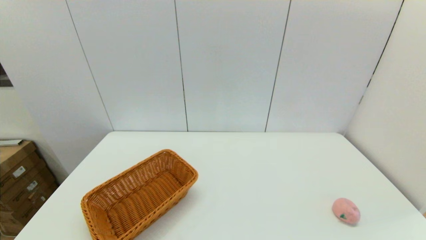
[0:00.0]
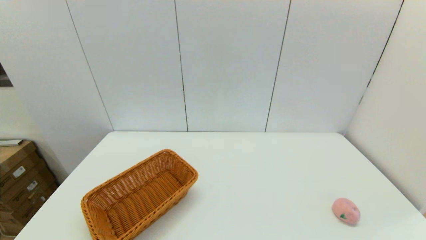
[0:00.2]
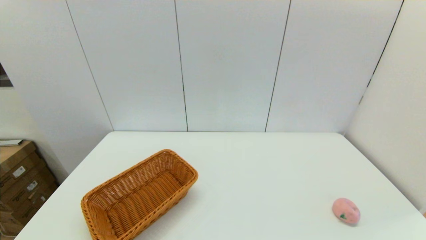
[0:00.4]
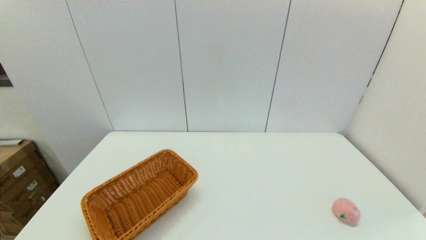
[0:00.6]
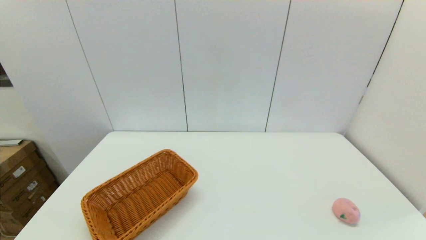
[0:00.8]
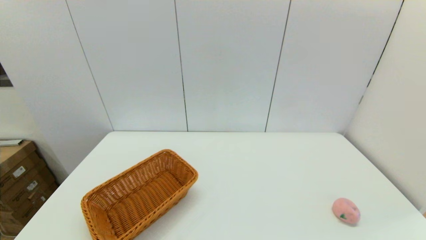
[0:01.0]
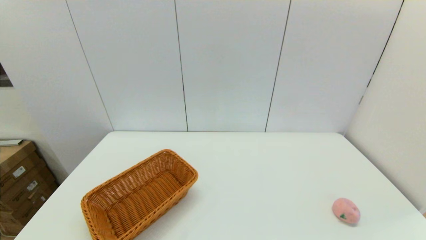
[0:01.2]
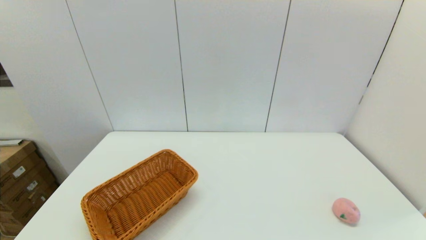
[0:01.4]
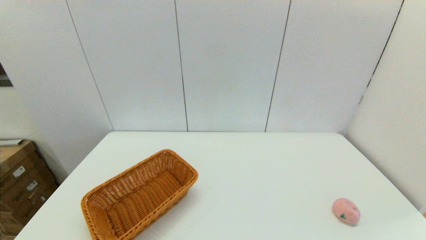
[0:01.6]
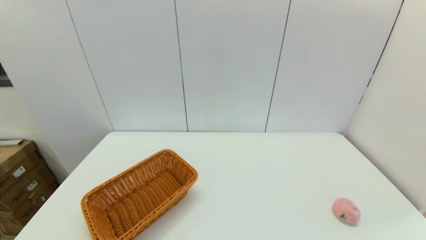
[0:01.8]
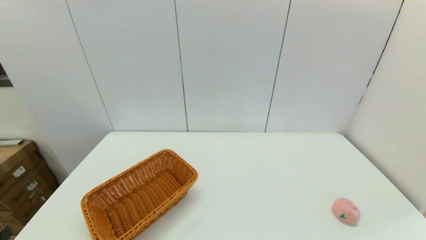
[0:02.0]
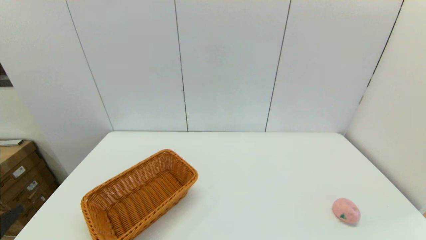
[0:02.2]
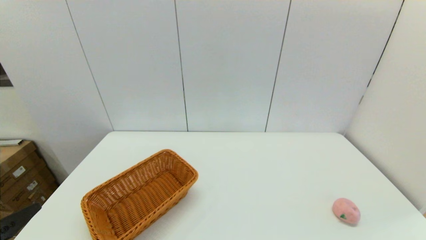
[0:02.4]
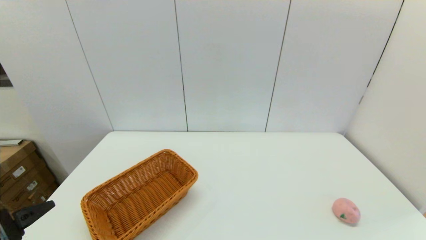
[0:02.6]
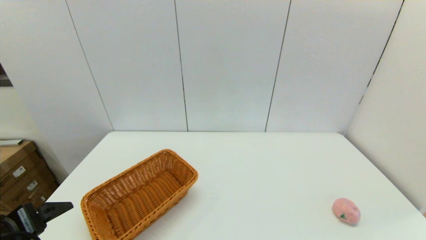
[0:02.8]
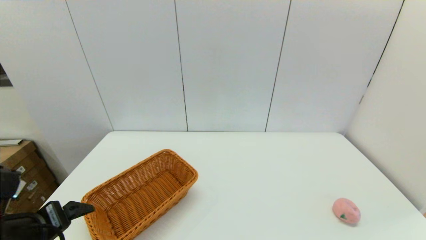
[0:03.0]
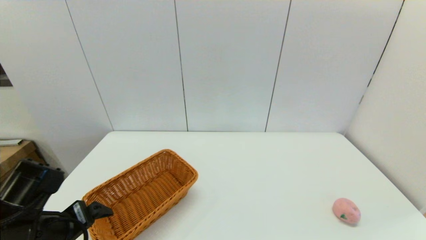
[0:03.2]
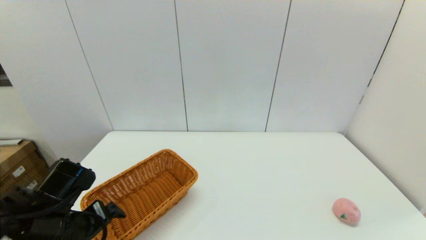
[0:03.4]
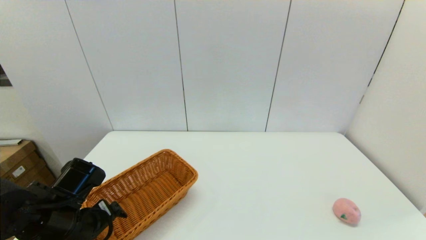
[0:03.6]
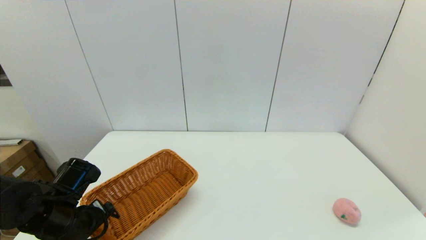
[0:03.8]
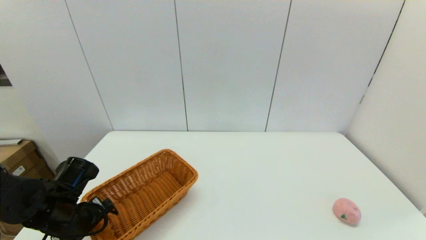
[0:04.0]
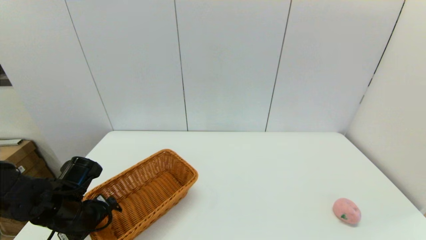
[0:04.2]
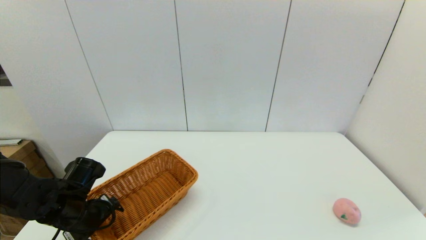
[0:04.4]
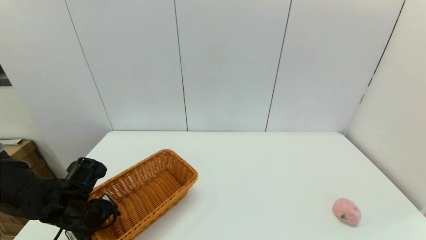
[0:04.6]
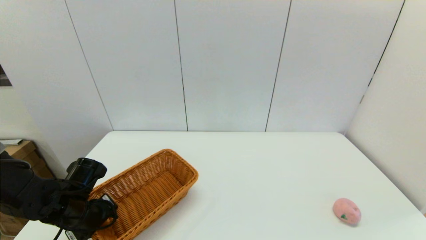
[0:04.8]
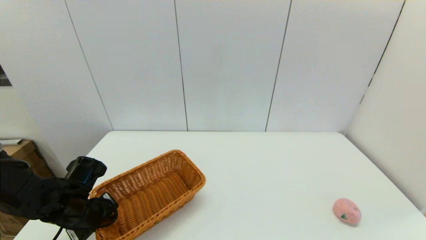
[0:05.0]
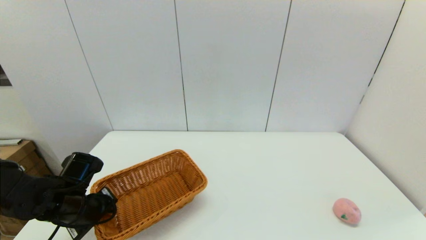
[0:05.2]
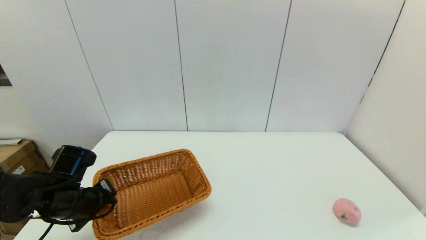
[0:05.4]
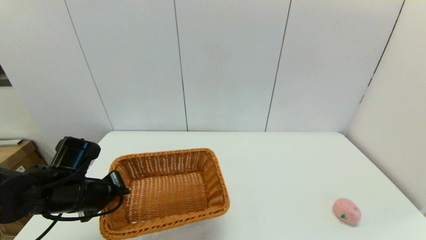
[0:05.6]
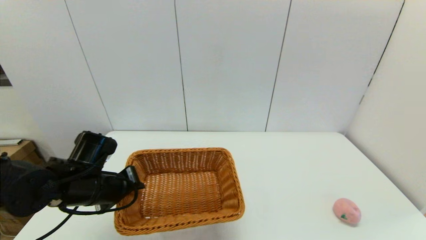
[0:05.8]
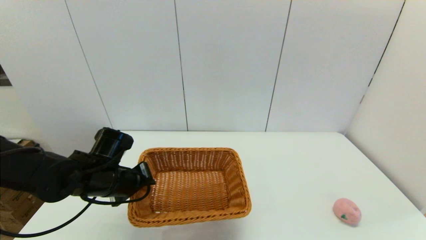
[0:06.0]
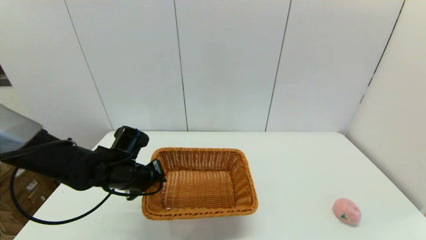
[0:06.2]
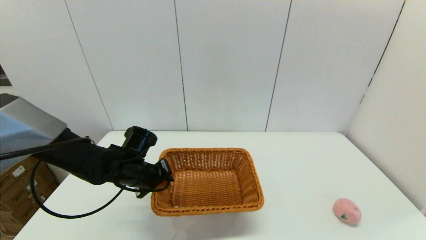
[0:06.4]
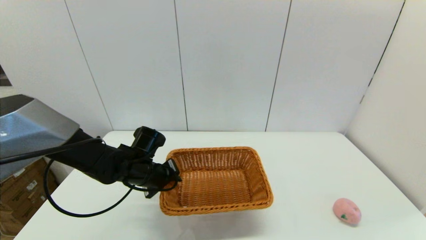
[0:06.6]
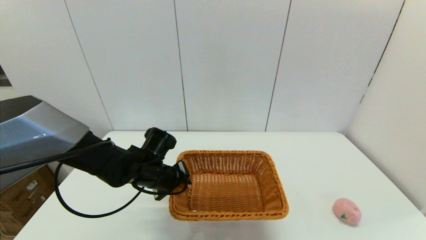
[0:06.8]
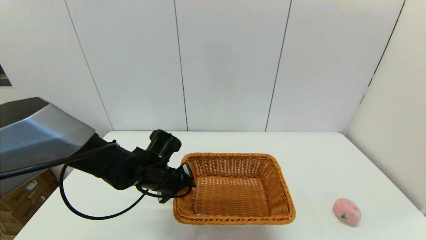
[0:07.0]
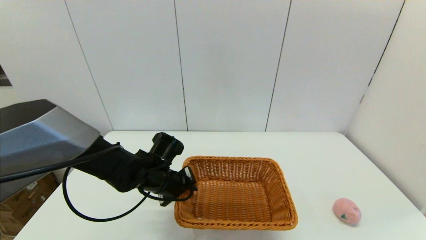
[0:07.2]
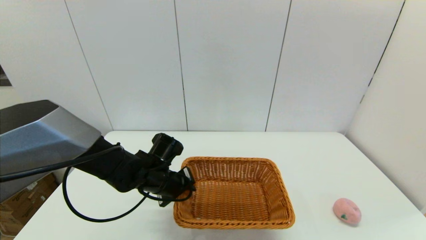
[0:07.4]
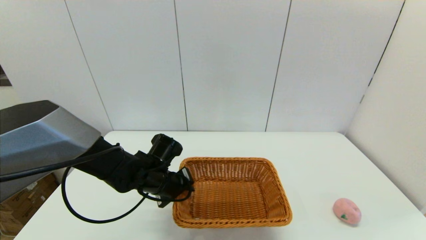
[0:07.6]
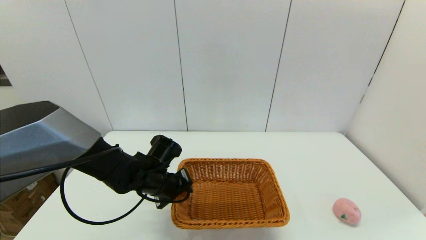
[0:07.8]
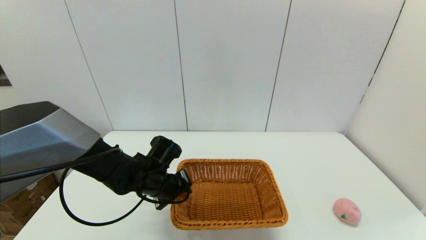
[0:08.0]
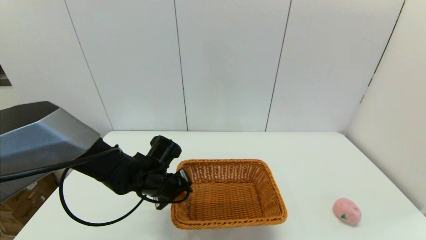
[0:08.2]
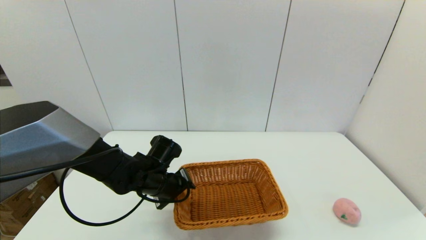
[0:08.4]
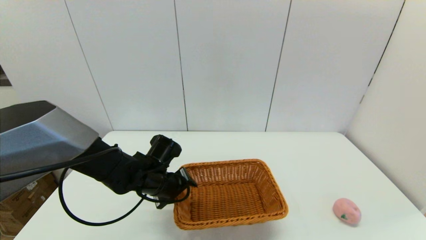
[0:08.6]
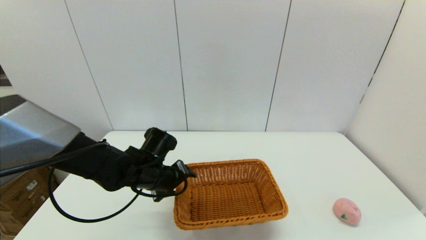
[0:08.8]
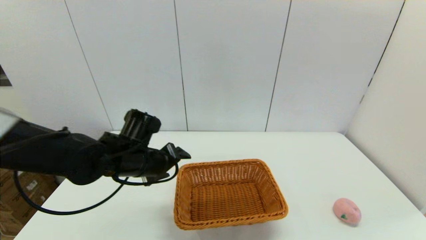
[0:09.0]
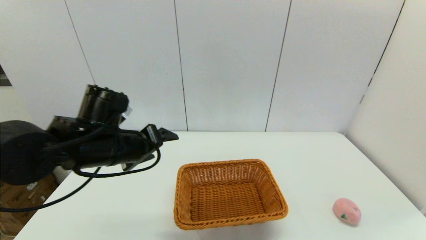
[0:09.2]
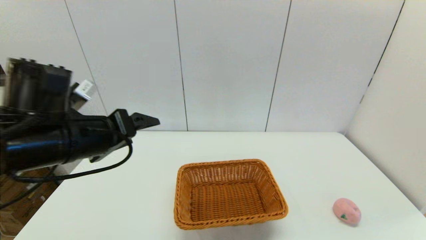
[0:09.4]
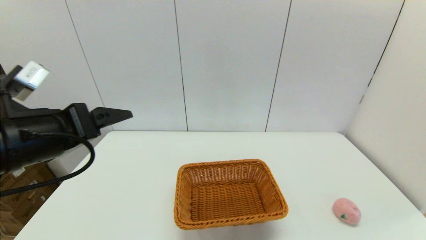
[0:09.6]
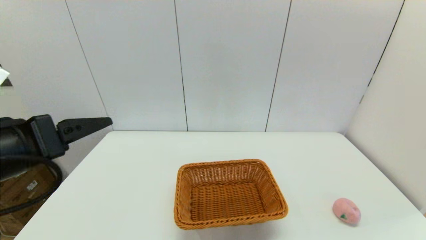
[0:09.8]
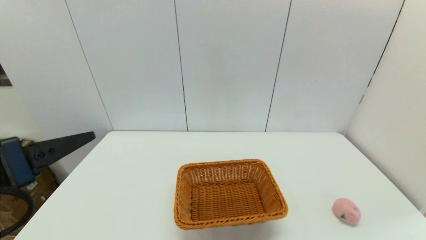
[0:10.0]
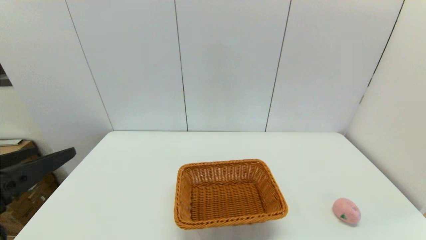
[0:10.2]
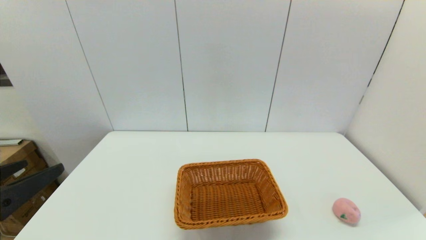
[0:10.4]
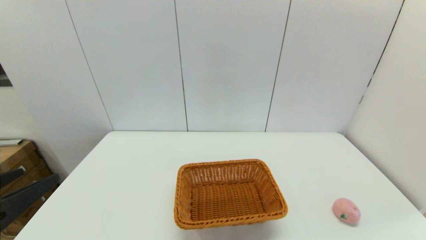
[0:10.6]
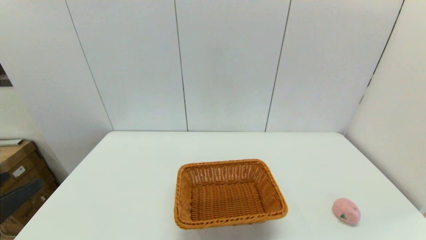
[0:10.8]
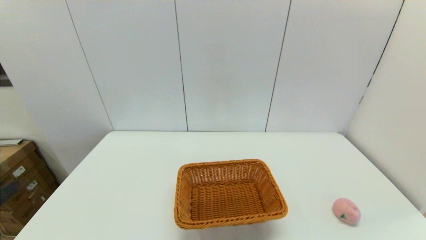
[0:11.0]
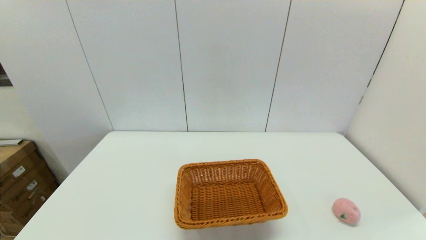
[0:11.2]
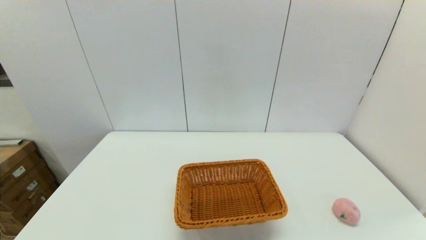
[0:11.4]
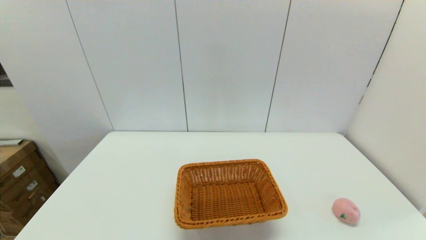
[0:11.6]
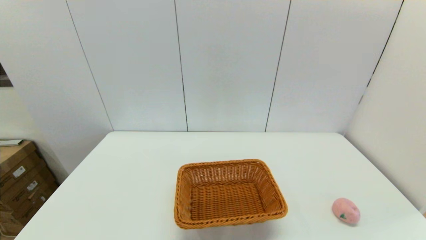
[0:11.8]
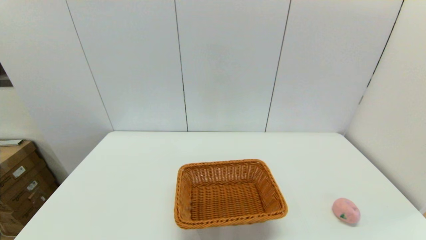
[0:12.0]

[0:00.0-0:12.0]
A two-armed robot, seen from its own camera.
Step, 0:00.0 to 0:04.8: Grasp the light basket with the left gripper.
Step, 0:05.2 to 0:08.6: Place the light basket on the middle of the table with the left gripper.
0:01.6 to 0:03.0: The left gripper moves forward, about 15 cm.
0:03.0 to 0:04.4: The left gripper shifts about 15 cm forward and downward.
0:04.4 to 0:06.0: The left gripper heads to the right, covering about 5 cm, and closes its fingers.
0:06.0 to 0:07.6: The left gripper shifts some 10 cm to the right.
0:07.6 to 0:09.0: The left gripper moves upward, about 10 cm, and opens up.
0:09.0 to 0:10.4: The left gripper heads backward, to the left and upward, covering some 25 cm.
0:10.4 to 0:12.0: The left gripper is displaced backward and downward by some 10 cm.

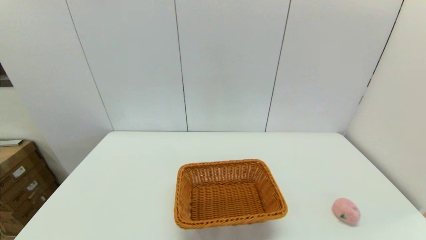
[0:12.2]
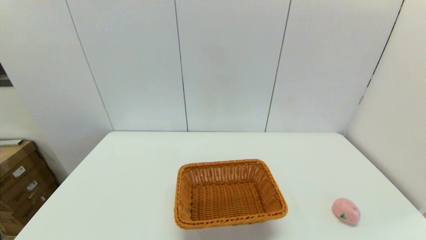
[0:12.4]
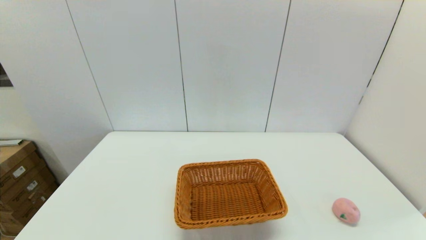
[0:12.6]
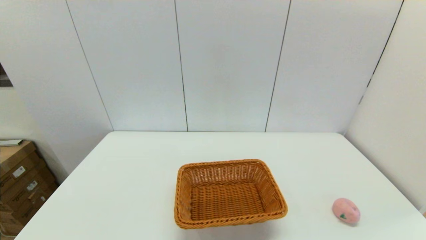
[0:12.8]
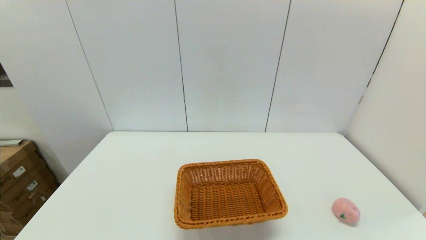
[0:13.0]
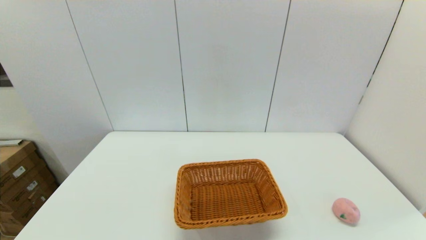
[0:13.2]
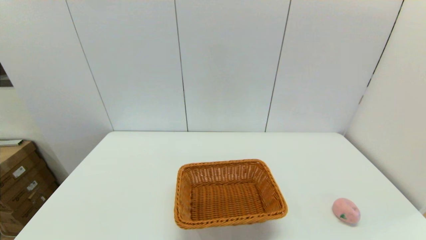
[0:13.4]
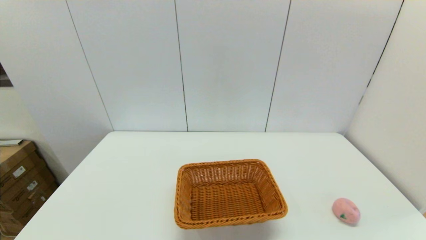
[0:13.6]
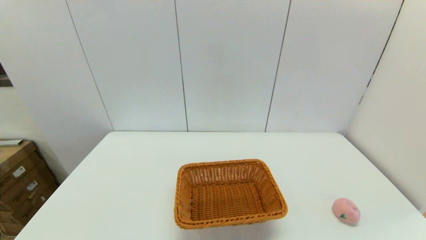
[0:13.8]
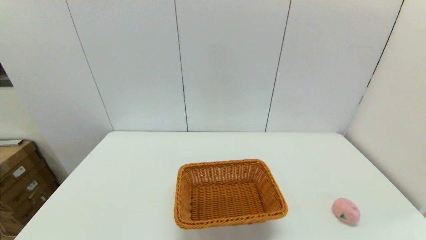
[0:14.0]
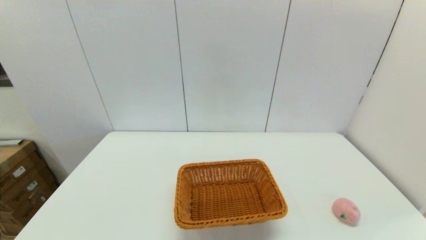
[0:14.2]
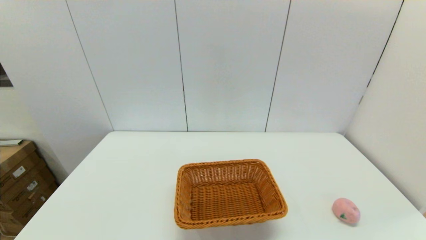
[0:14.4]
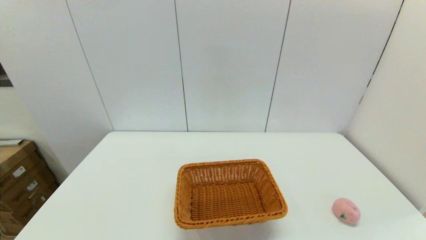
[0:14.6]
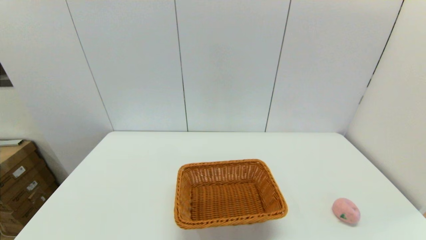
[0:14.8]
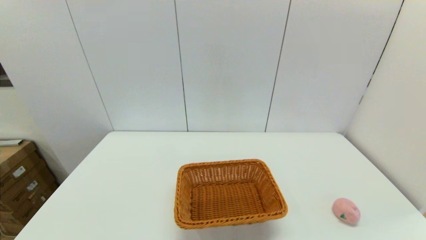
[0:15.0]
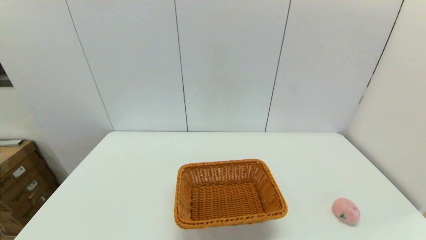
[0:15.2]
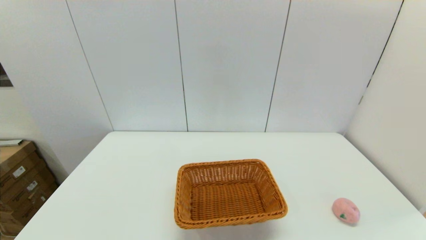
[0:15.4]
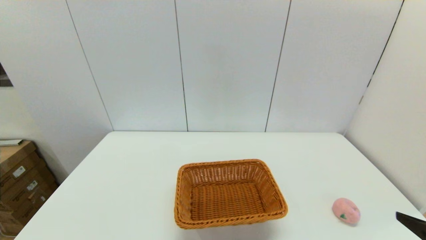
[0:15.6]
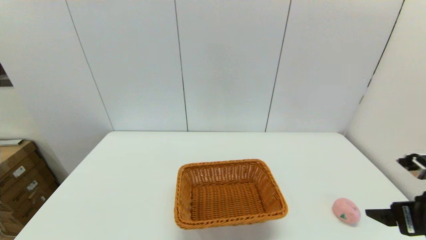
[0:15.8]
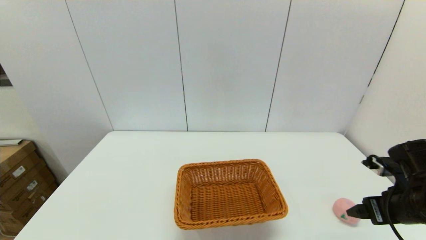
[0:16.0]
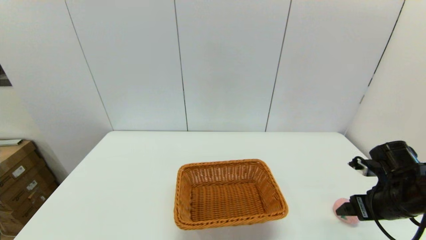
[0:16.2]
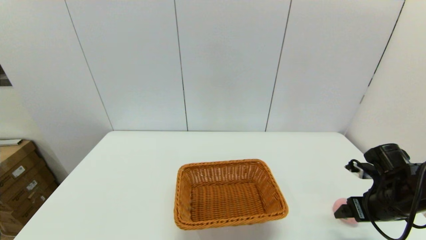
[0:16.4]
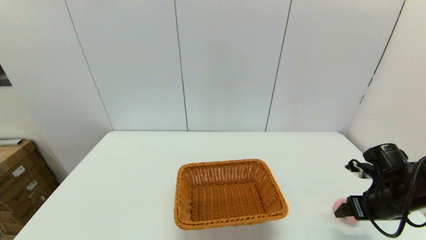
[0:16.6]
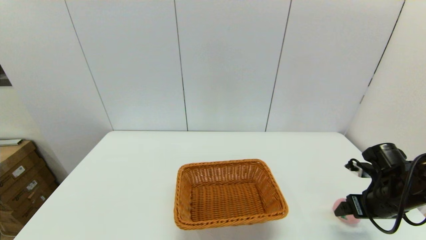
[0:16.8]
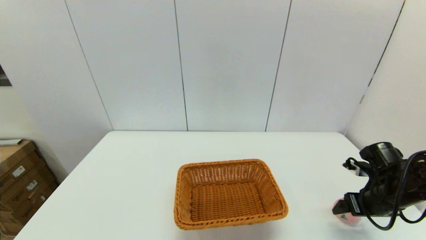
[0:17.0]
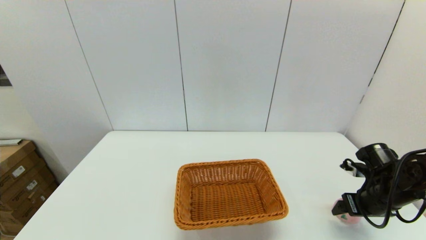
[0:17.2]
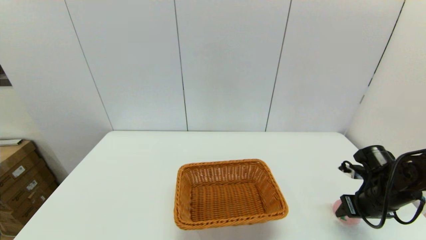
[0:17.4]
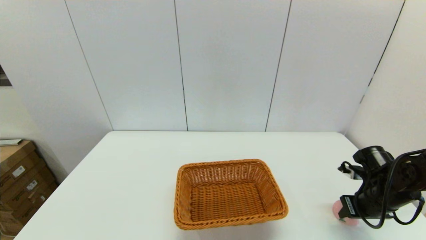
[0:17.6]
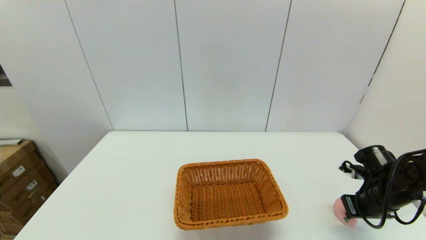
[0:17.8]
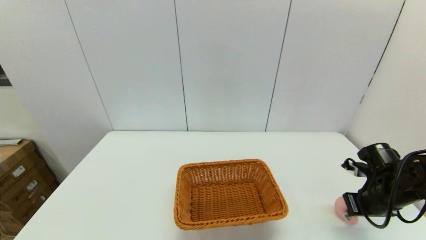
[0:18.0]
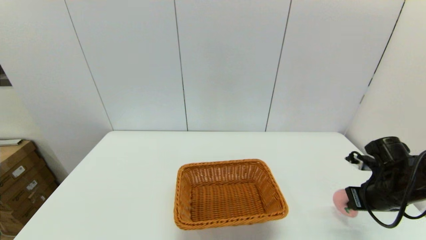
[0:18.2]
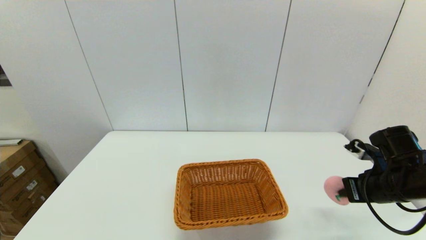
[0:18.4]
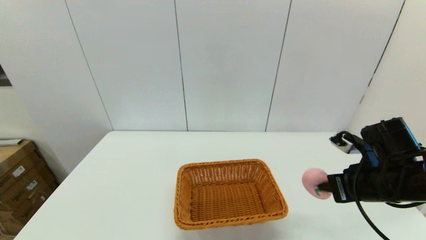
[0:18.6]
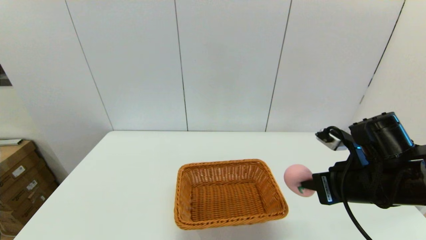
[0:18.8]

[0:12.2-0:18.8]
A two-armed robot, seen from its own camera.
Step, 0:12.2 to 0:17.8: Grasp the peach with the right gripper.
0:15.4 to 0:17.2: The right gripper heads forward and downward, covering some 25 cm.
0:17.2 to 0:18.8: The right gripper goes approximately 15 cm to the left, upward and backward, and closes up.
